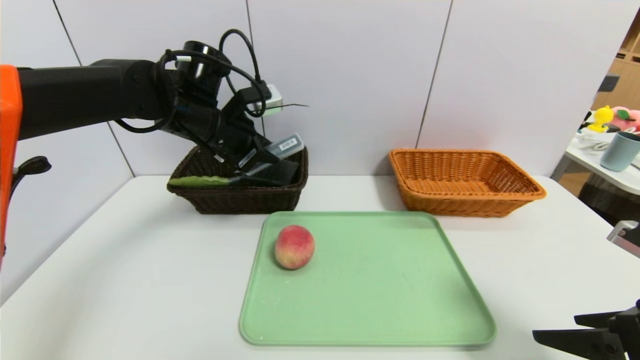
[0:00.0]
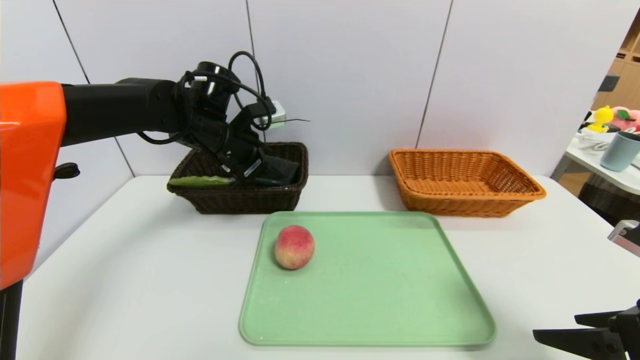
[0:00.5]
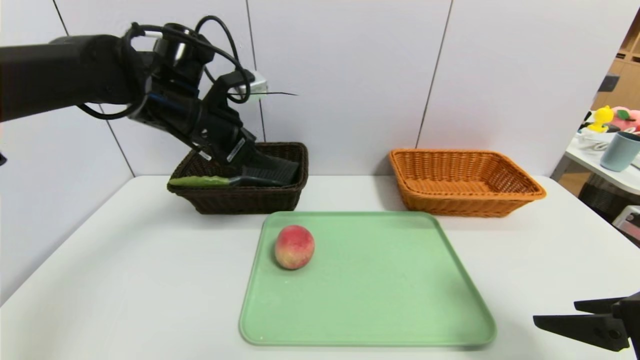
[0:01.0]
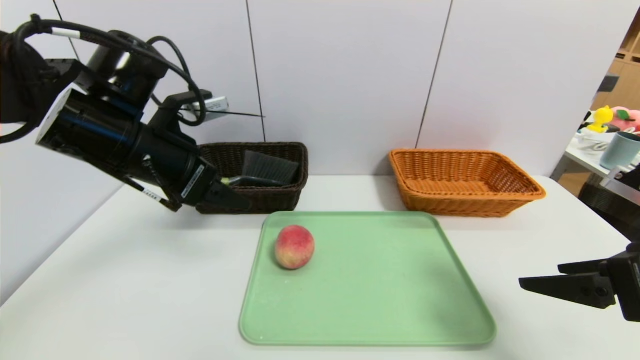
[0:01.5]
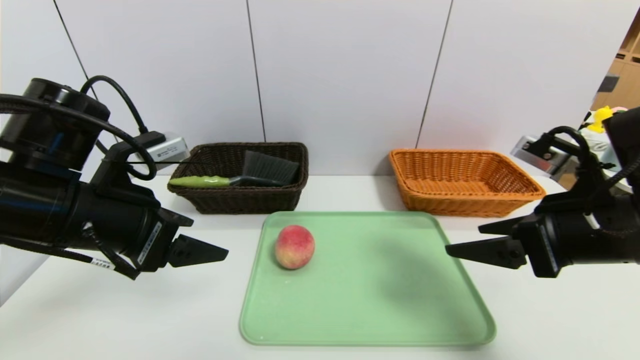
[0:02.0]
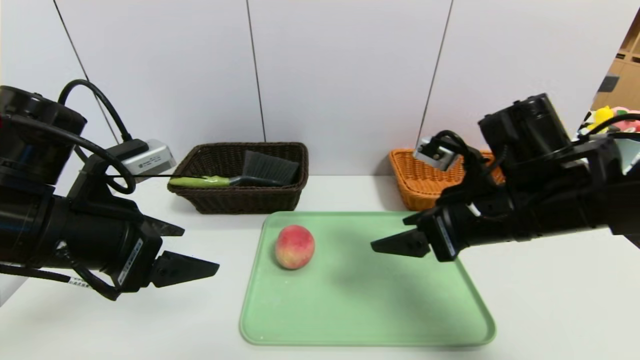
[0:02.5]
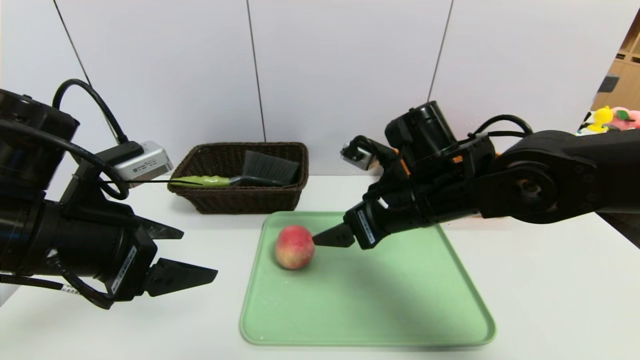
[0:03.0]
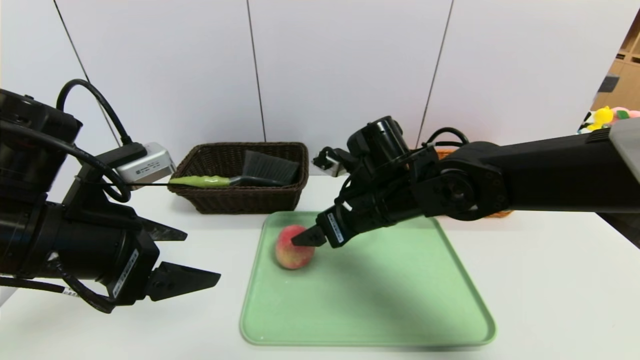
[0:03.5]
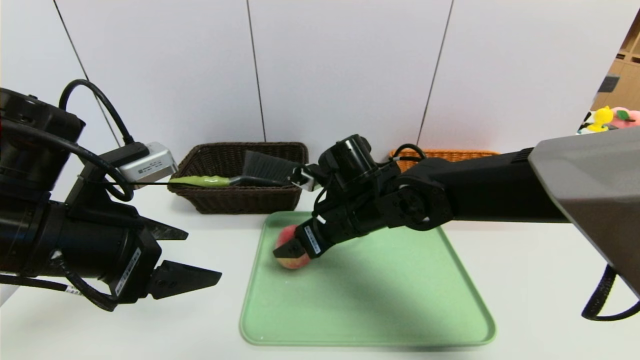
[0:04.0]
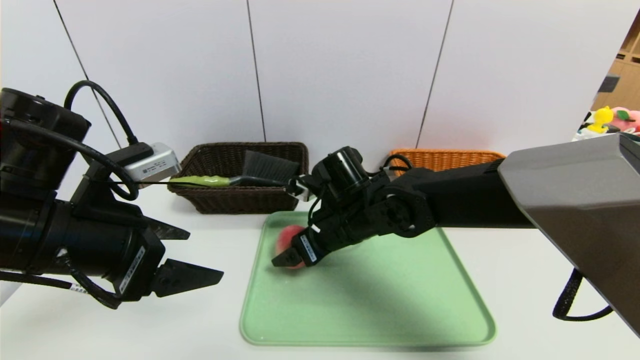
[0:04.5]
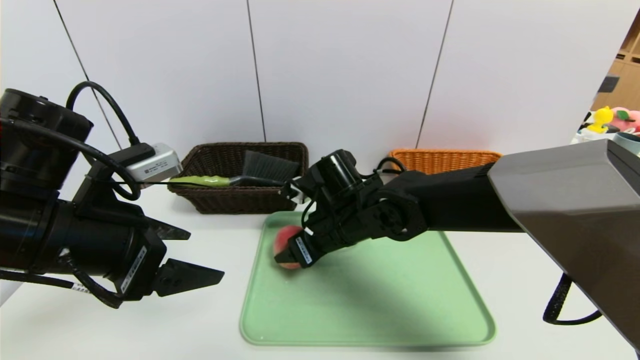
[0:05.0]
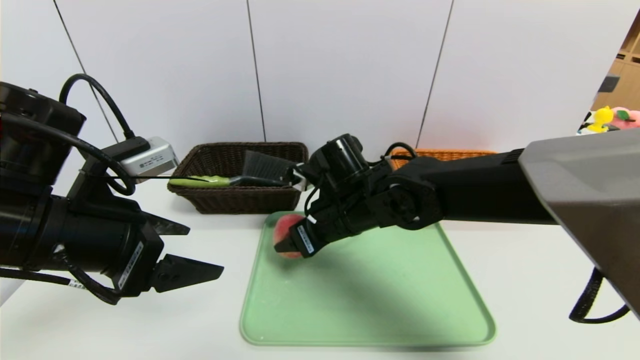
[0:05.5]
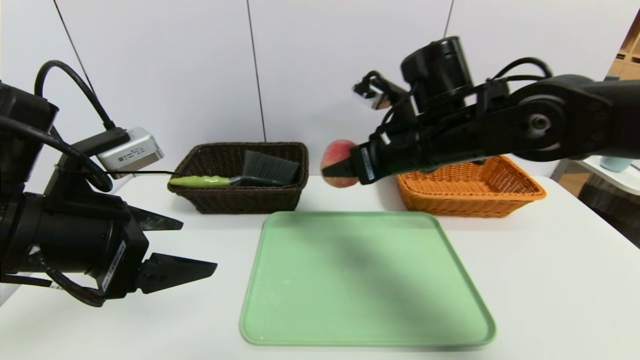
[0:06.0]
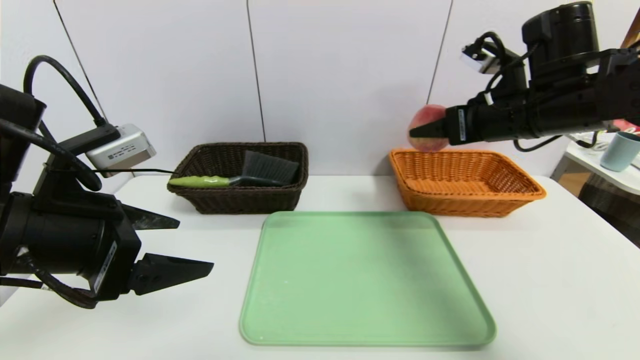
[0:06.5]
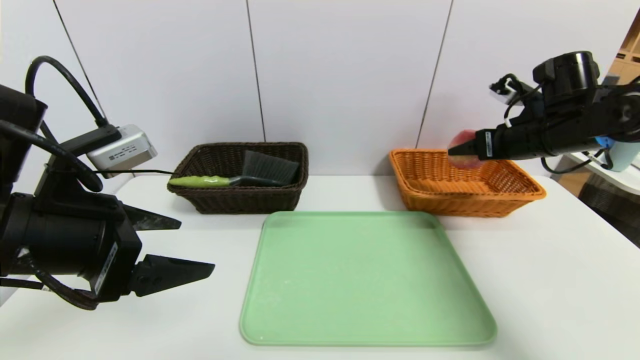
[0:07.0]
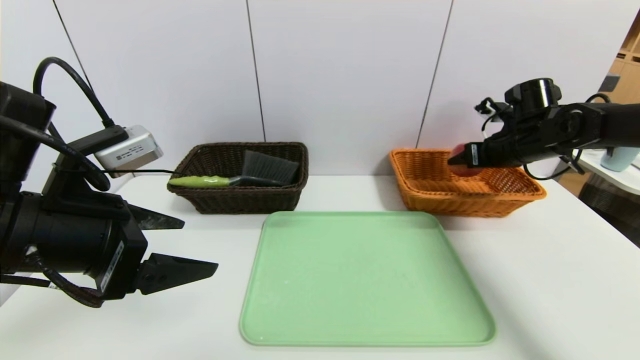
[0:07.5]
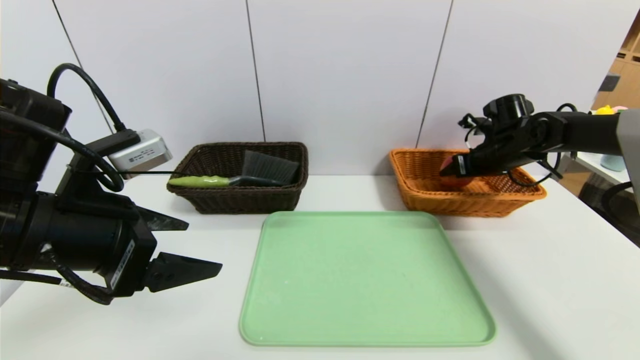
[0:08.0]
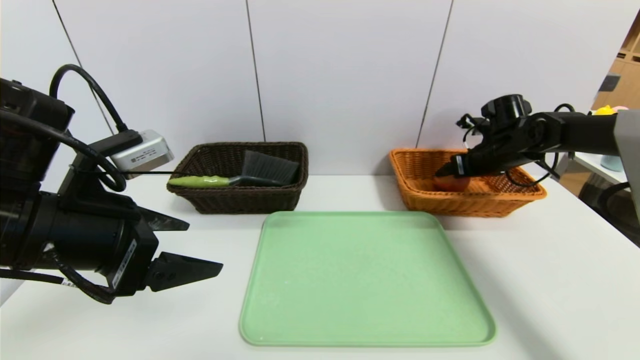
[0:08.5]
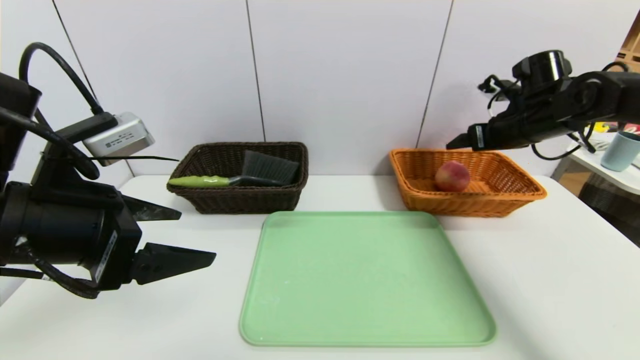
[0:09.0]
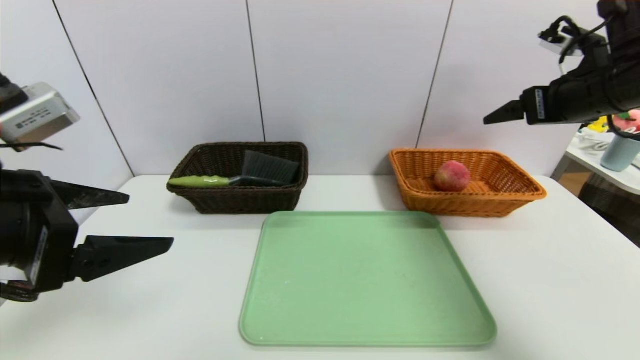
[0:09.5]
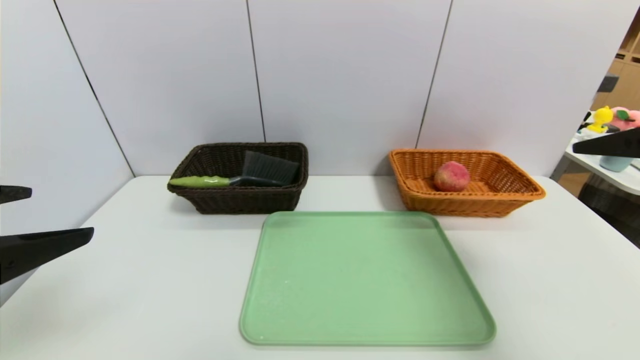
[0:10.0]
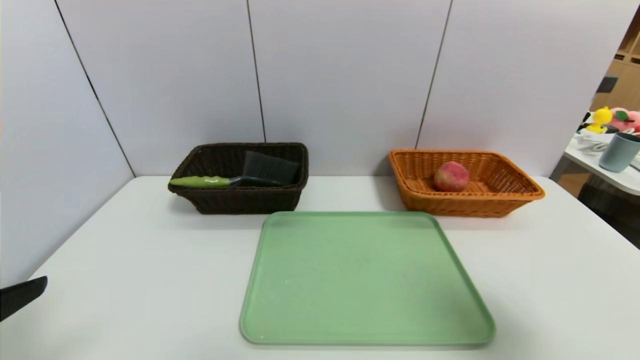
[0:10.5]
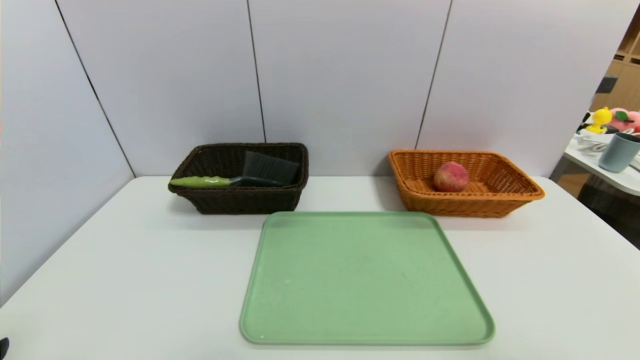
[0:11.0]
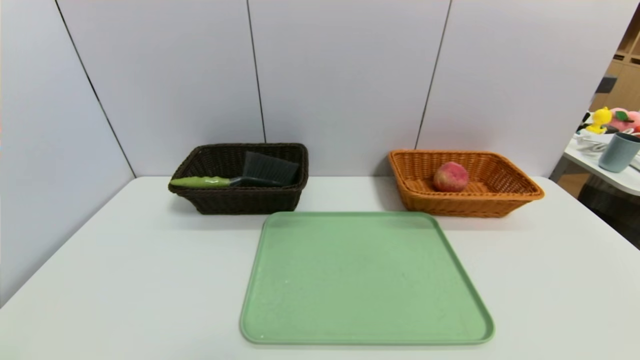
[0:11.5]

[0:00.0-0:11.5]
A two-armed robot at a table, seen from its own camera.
Task of the whole recording: place the food in the right basket with the right gripper, and place the non food items in the left basket with the left gripper.
Step, 0:01.5 to 0:09.5: Grasp the peach and put it in the right basket.
0:00.0 to 0:02.0: The left gripper moves backward, approximately 20 cm, and opens its fingers. Meanwhile the right gripper shifts approximately 10 cm forward and to the left.
0:02.0 to 0:04.0: The right gripper travels to the left and forward by some 25 cm.
0:04.0 to 0:06.0: The right gripper moves upward and to the right, roughly 15 cm, and closes its fingers.
0:06.0 to 0:07.5: The right gripper moves to the right and forward, about 25 cm.
0:07.5 to 0:09.5: The right gripper is displaced upward and backward by roughly 20 cm, and opens up, while the left gripper changes place by roughly 5 cm.
0:09.5 to 0:11.5: The left gripper moves backward and downward, about 20 cm; the right gripper travels backward by some 40 cm.

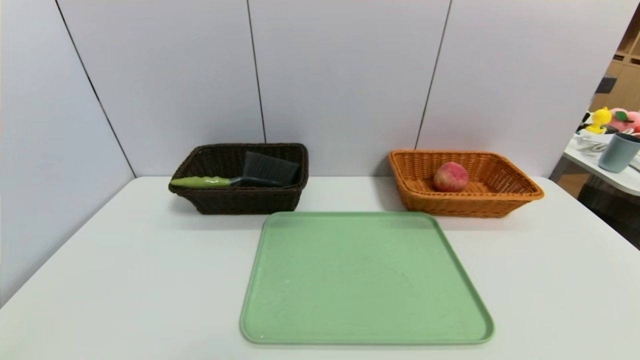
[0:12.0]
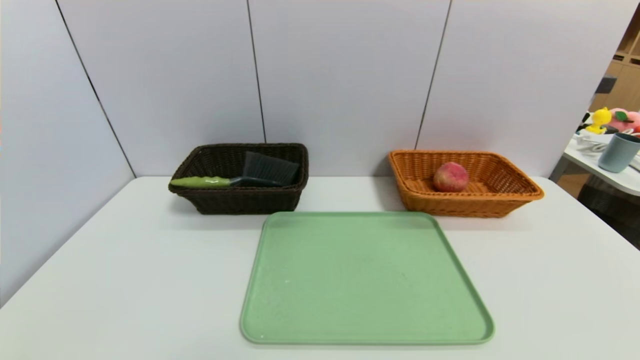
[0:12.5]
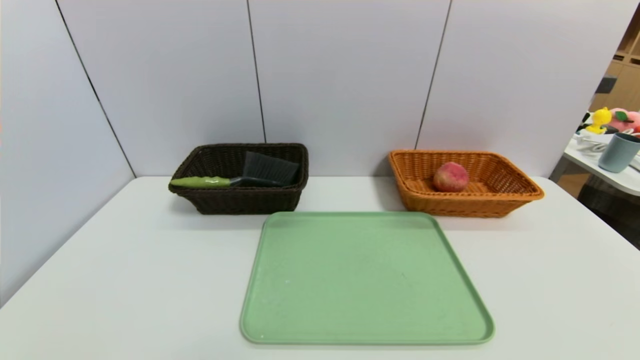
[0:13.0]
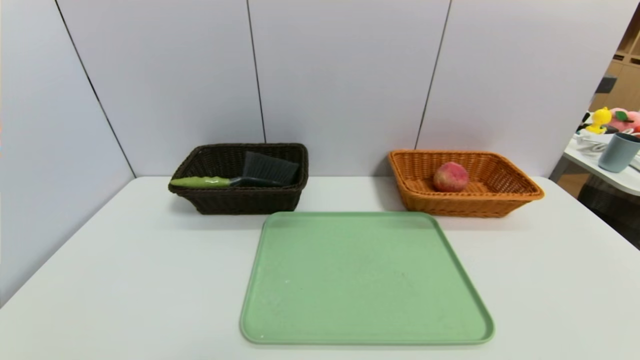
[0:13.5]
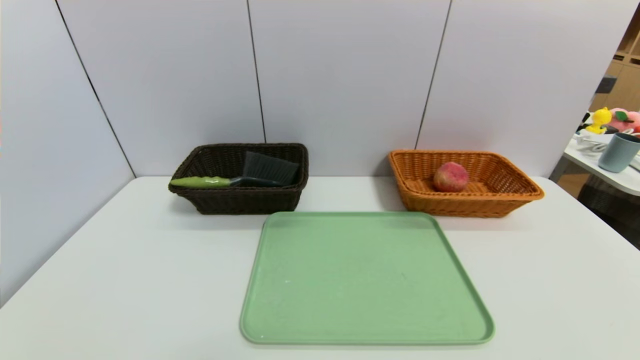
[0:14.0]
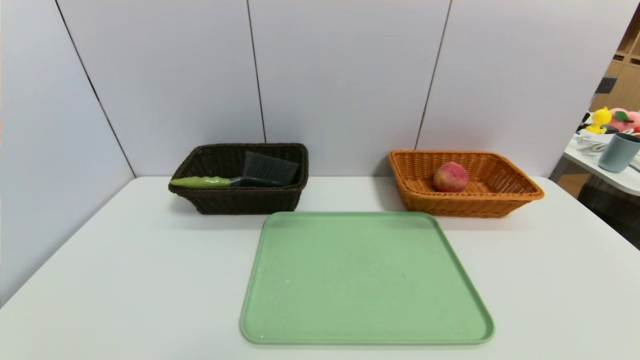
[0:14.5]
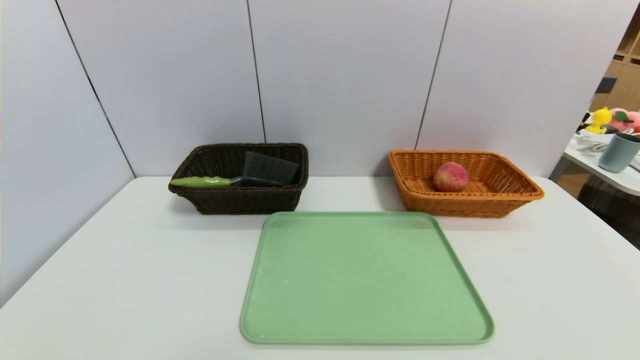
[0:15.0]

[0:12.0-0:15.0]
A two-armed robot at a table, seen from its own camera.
Task of the whole recording: place the food in the right basket with the right gripper, and place the non food items in the left basket with the left gripper.
0:13.5 to 0:15.0: Neither gripper changes place.

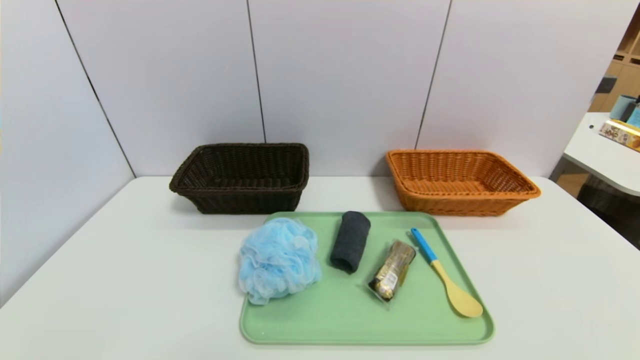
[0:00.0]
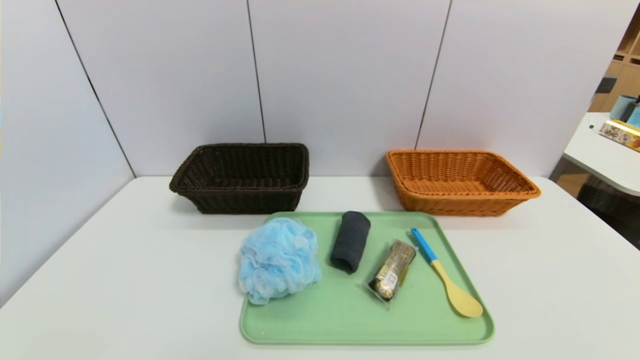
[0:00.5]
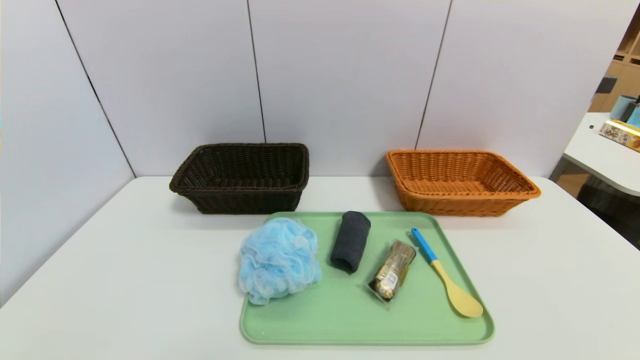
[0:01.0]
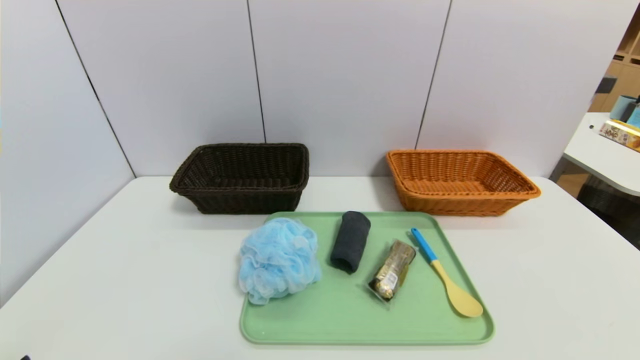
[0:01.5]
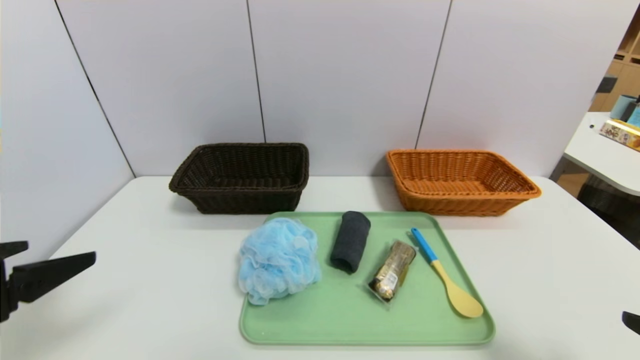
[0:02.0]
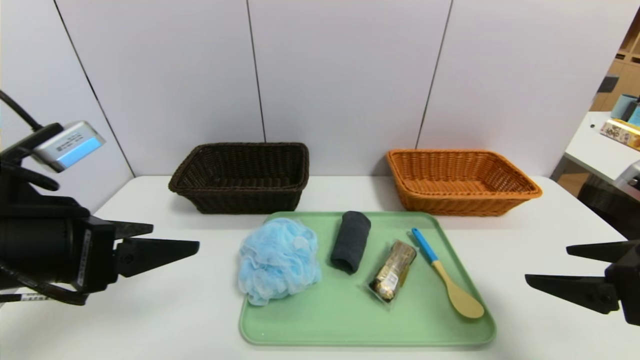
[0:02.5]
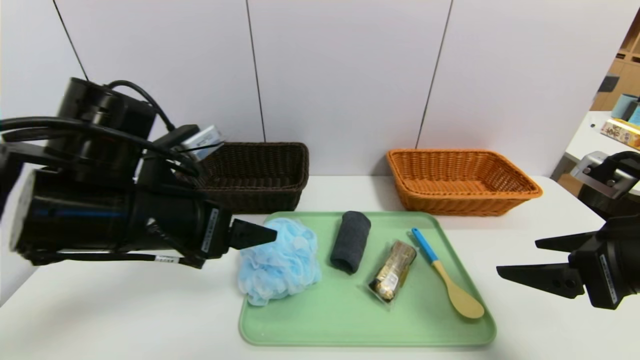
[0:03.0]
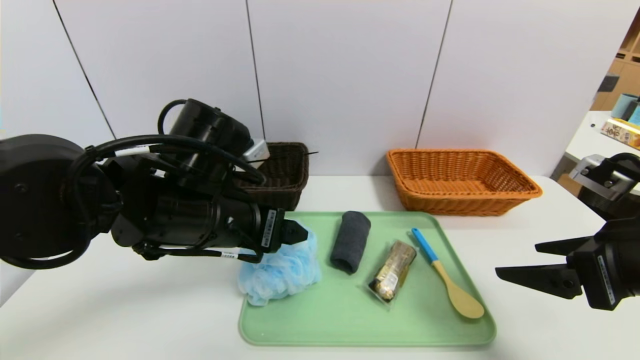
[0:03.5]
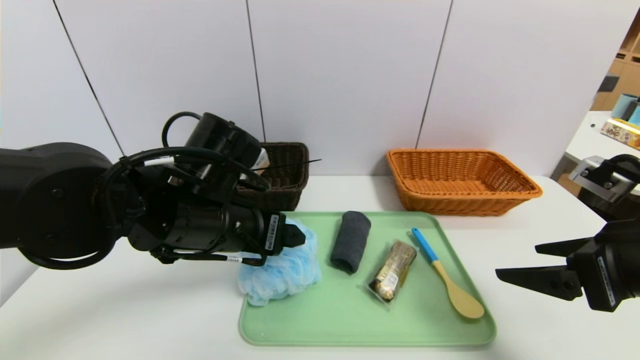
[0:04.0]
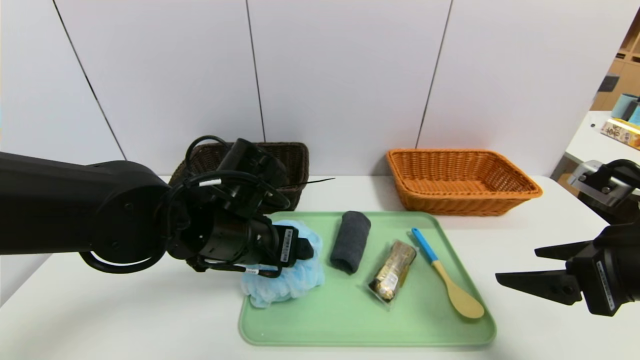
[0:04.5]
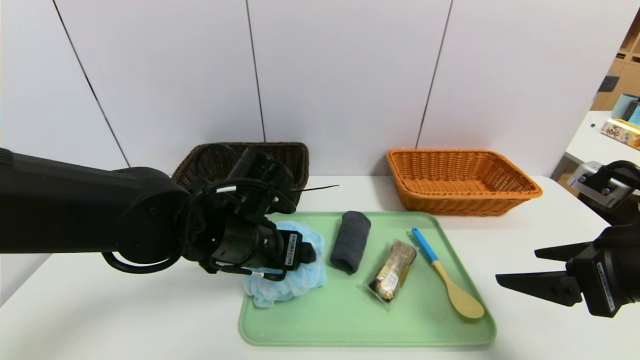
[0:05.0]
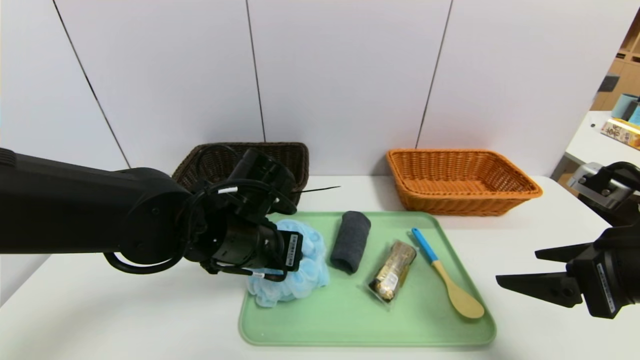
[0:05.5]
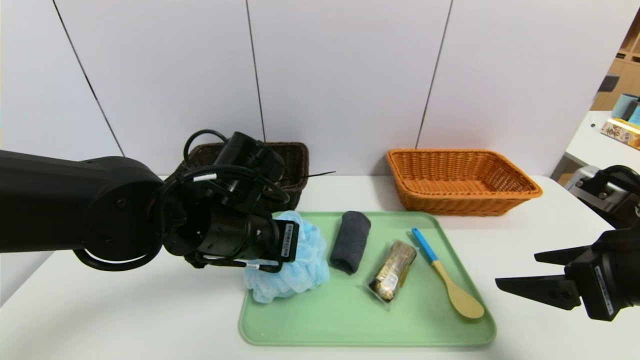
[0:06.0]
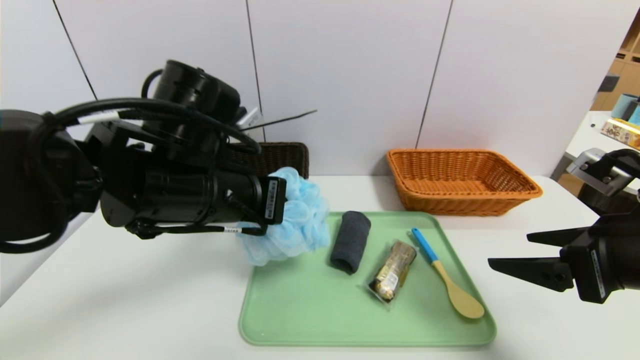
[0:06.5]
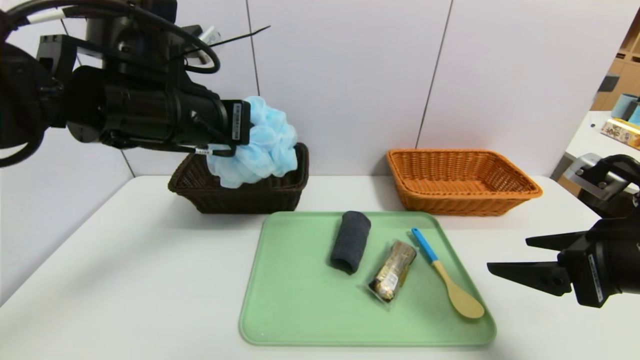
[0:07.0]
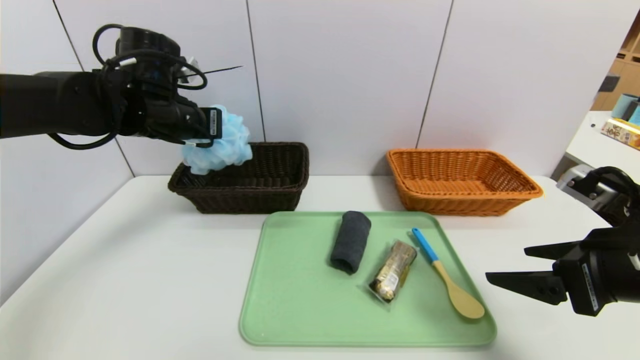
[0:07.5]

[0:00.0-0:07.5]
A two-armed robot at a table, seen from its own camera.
Task of the whole recording: place the food in the right basket with the right gripper, and place the non food items in the left basket with the left gripper.
0:00.0 to 0:02.0: The grippers both shift upward and forward by some 20 cm.
0:02.0 to 0:04.0: The left gripper heads to the right and forward, covering about 20 cm, while the right gripper shifts about 10 cm forward.
0:04.0 to 0:05.5: The left gripper closes.
0:05.5 to 0:07.5: The left gripper is displaced to the left, forward and upward by roughly 20 cm, and closes.
